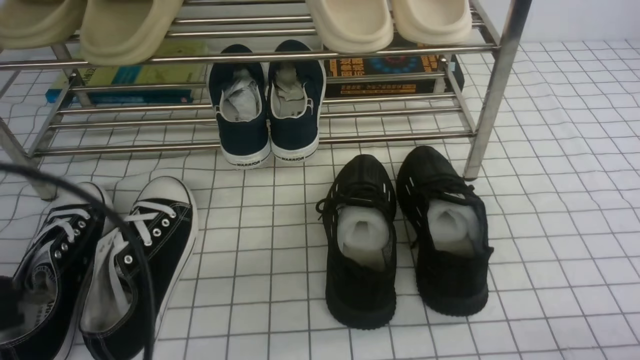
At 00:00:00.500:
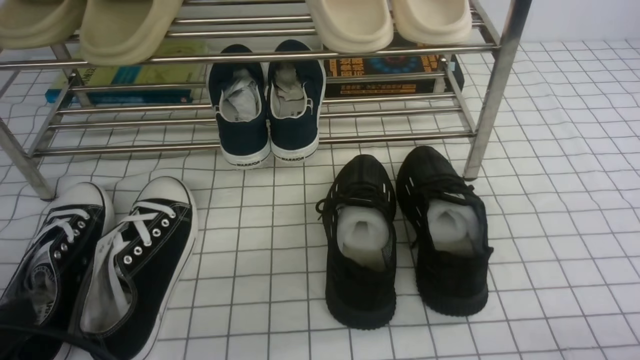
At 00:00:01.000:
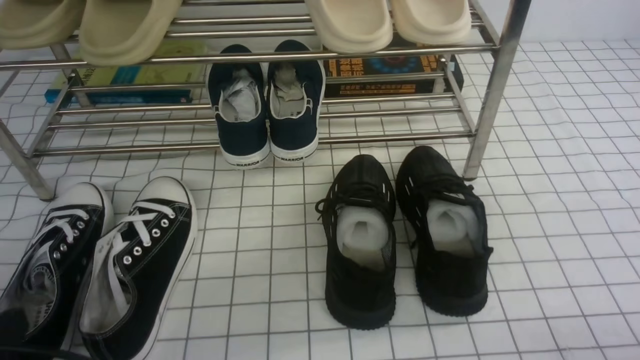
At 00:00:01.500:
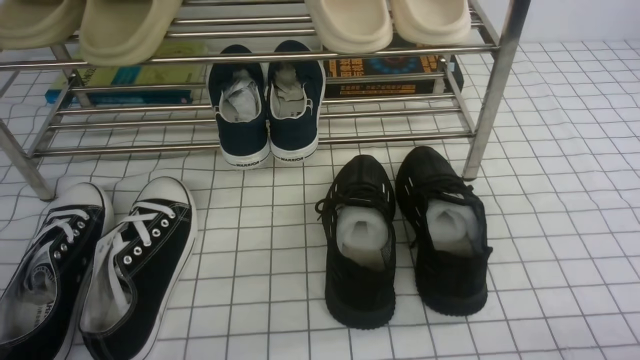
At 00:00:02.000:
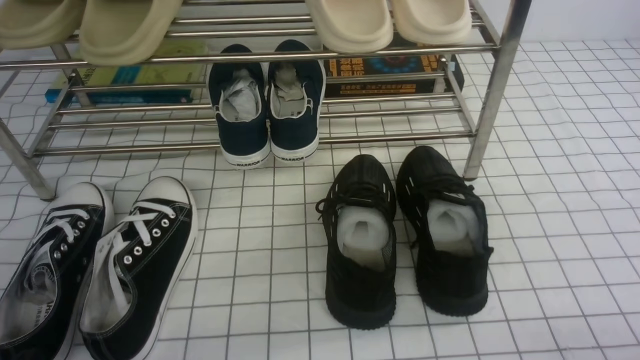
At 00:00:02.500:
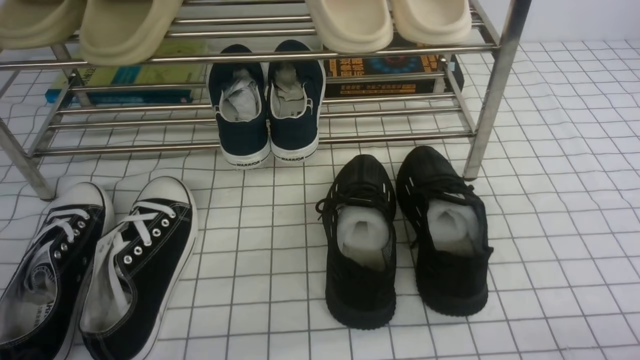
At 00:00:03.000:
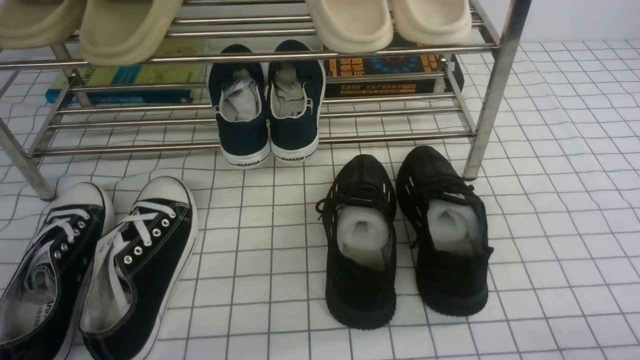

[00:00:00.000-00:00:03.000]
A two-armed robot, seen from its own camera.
00:00:00.000 to 00:00:01.500: The left gripper is displaced downward and backward by approximately 15 cm.

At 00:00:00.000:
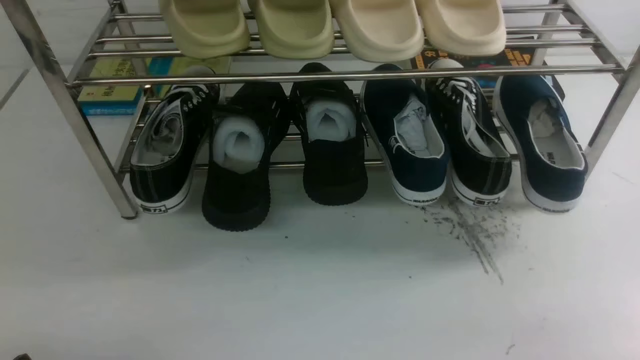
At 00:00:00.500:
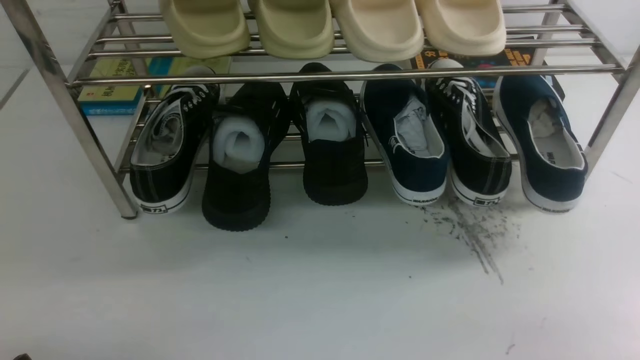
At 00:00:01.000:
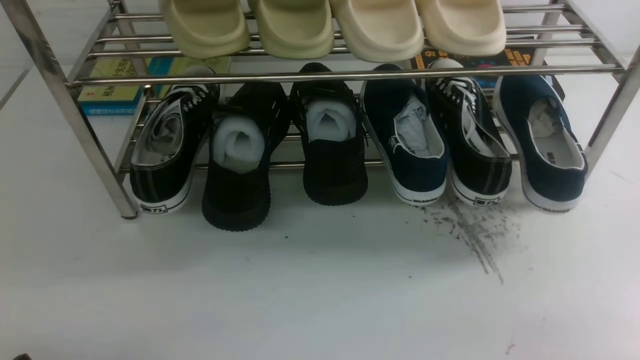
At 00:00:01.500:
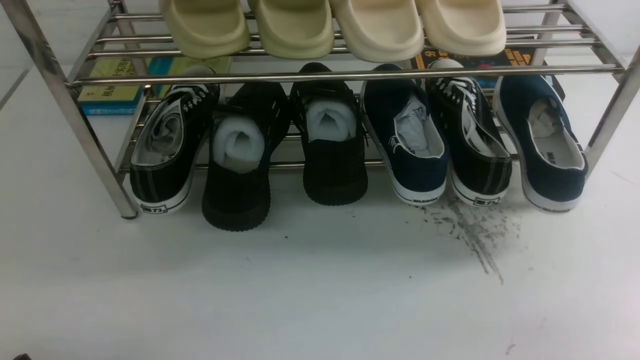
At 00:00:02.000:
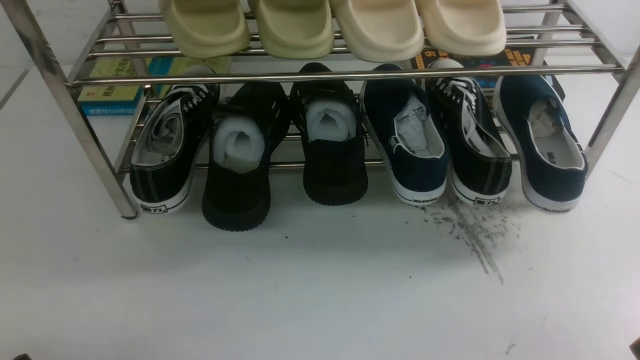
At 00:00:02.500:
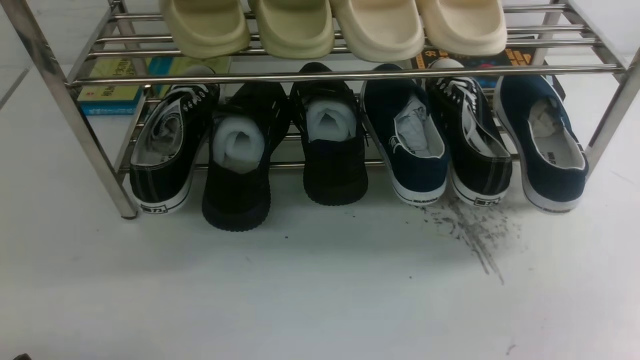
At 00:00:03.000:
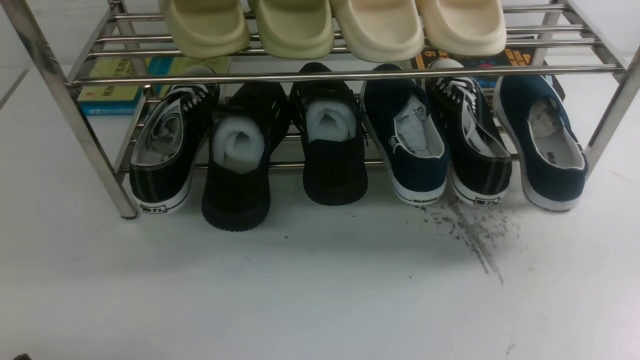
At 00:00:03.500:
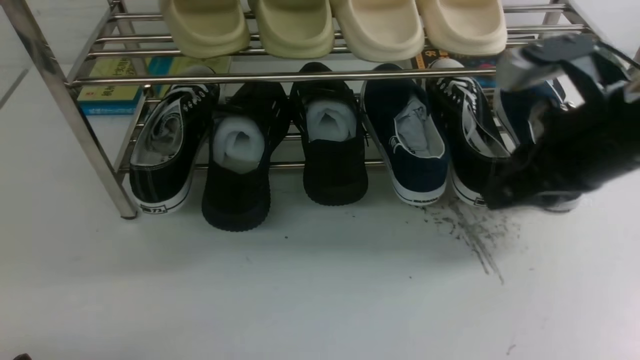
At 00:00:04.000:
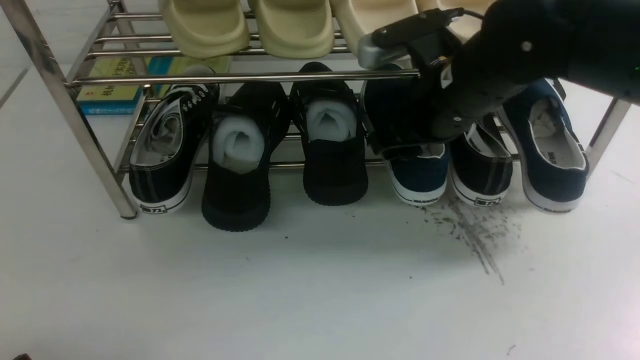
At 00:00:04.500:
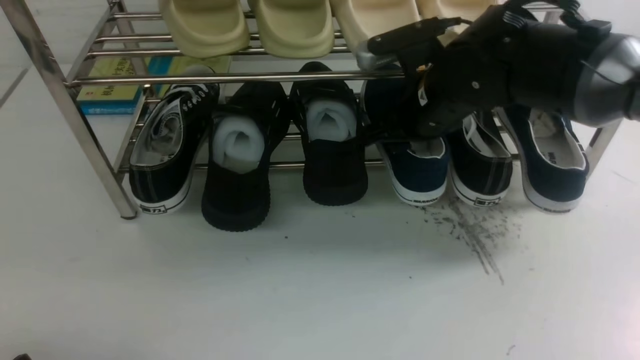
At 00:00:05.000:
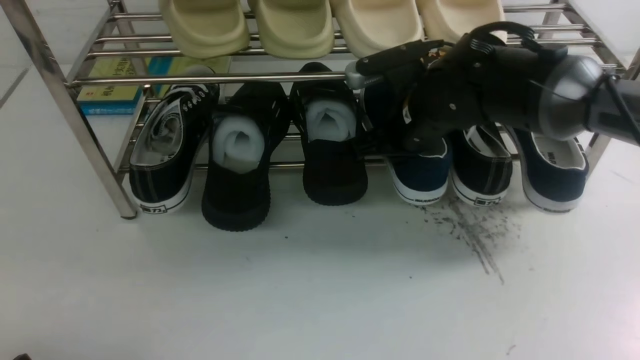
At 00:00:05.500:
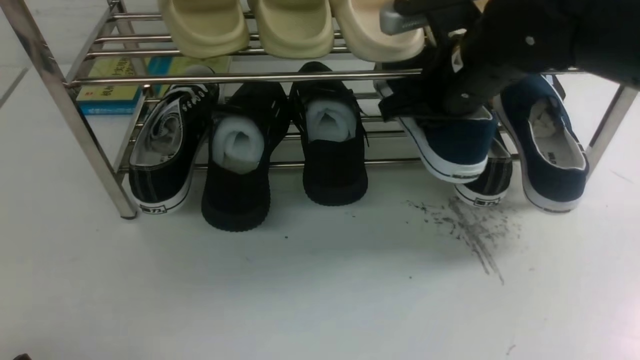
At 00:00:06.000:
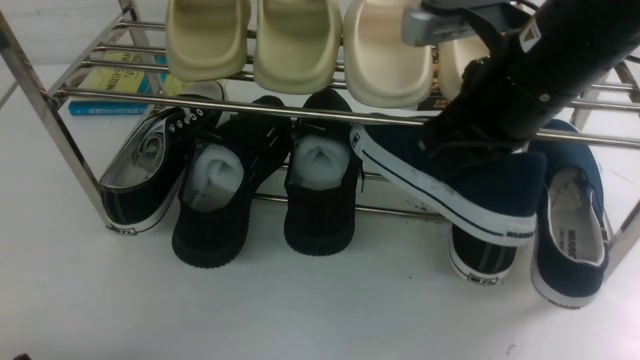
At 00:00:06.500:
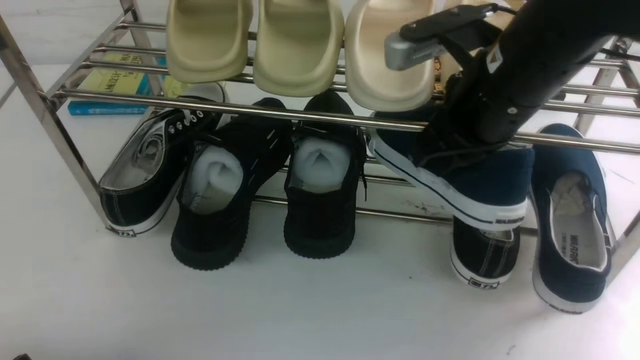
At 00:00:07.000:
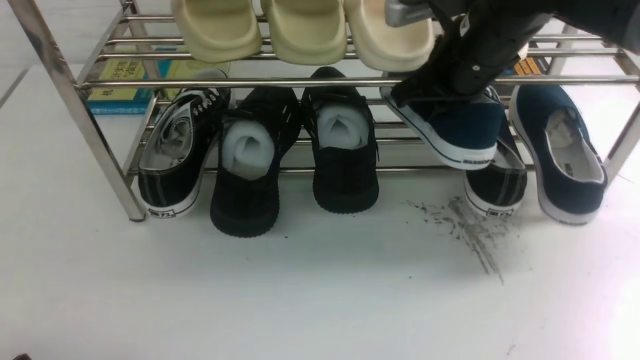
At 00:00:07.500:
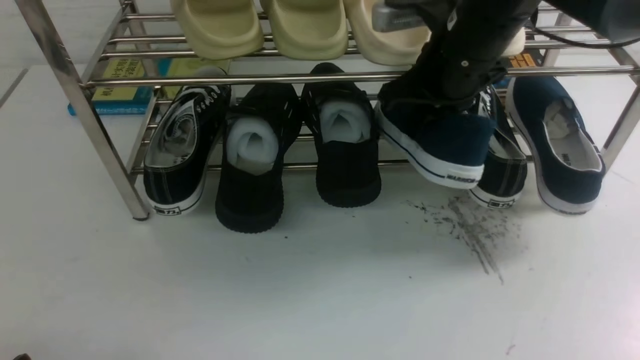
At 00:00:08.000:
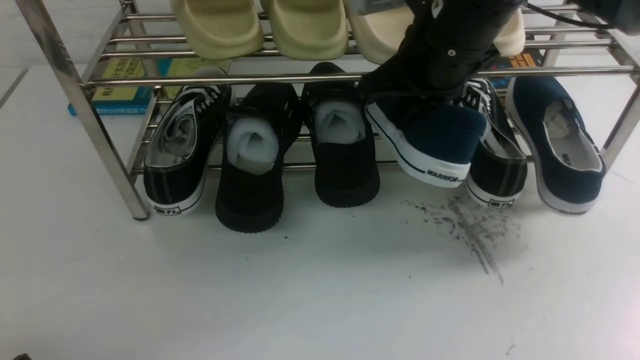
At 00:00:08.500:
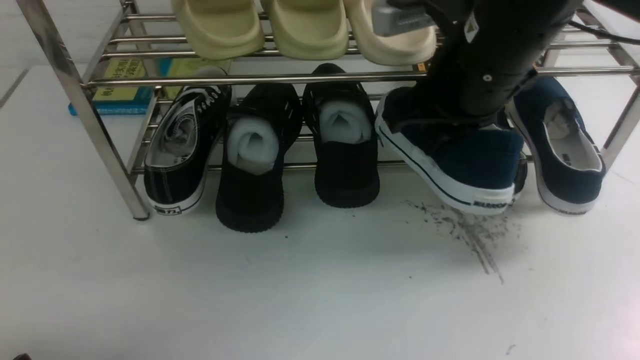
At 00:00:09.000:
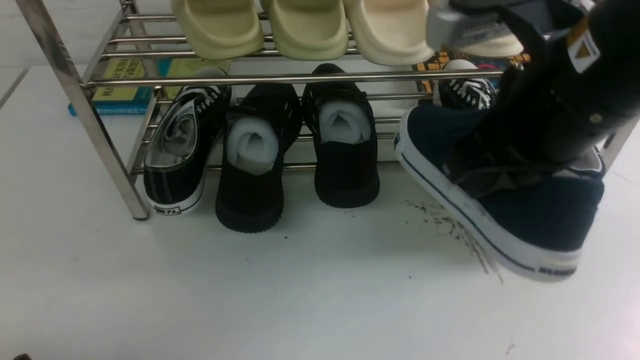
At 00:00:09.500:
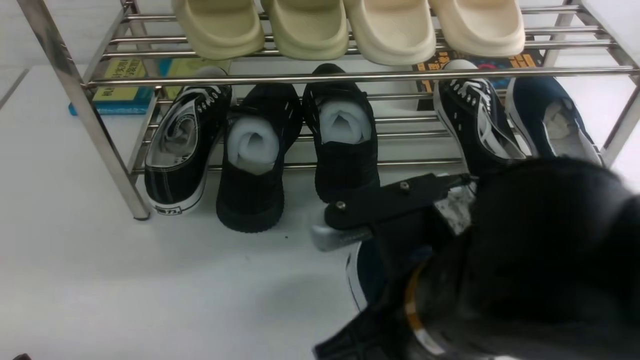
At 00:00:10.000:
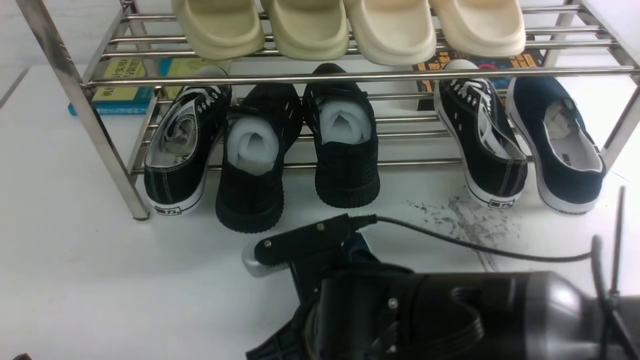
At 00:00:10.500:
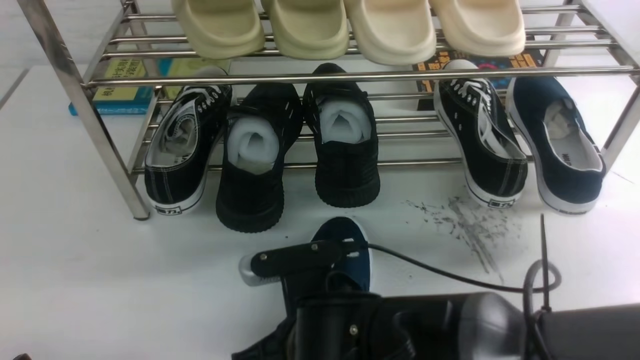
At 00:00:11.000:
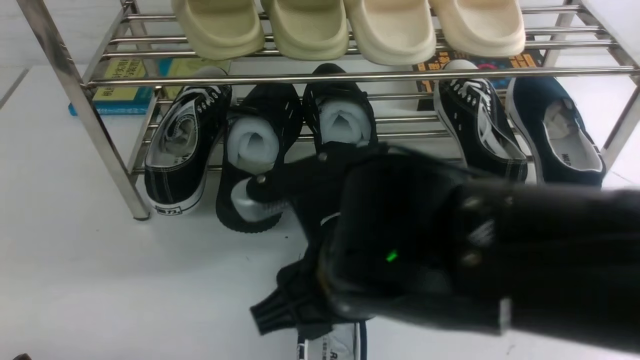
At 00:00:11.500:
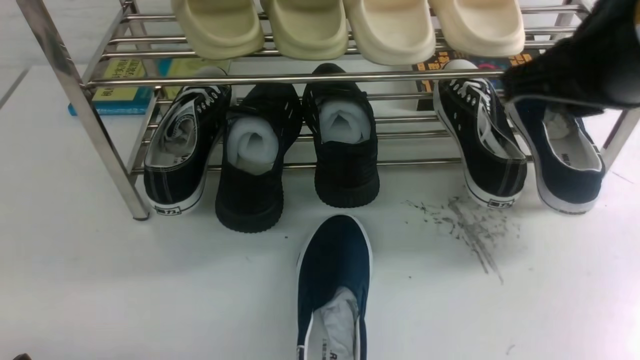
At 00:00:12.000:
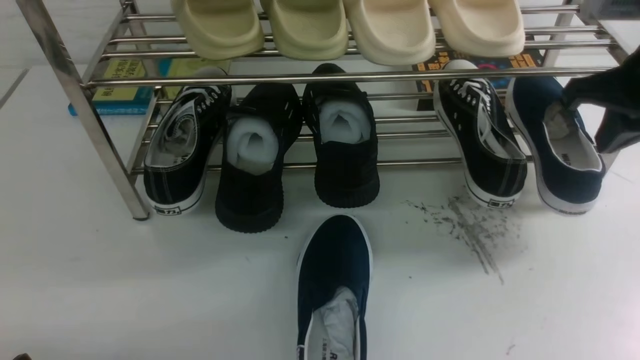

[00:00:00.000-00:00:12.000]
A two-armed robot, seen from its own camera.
Step, 00:00:00.000 to 00:00:05.000: use the right arm to clamp a shoe in the middle of the shoe rack.
Step, 00:00:05.500 to 00:00:11.000: use the right arm to take out the clamped shoe from the shoe rack and put it down.
00:00:02.000 to 00:00:04.000: The right gripper travels forward, to the left and upward by some 35 cm, and opens.
00:00:04.000 to 00:00:06.000: The right gripper heads upward and backward, covering approximately 10 cm, and closes up.
00:00:06.000 to 00:00:08.000: The right gripper travels forward by approximately 5 cm.
00:00:08.000 to 00:00:10.000: The right gripper goes some 25 cm backward, downward and to the left.
00:00:10.000 to 00:00:12.000: The right gripper goes some 35 cm to the right, forward and upward, and opens, then closes again.

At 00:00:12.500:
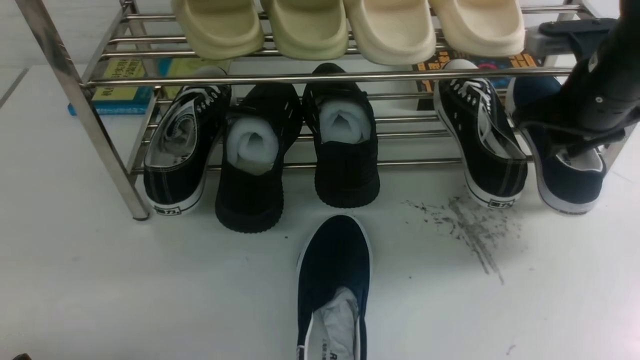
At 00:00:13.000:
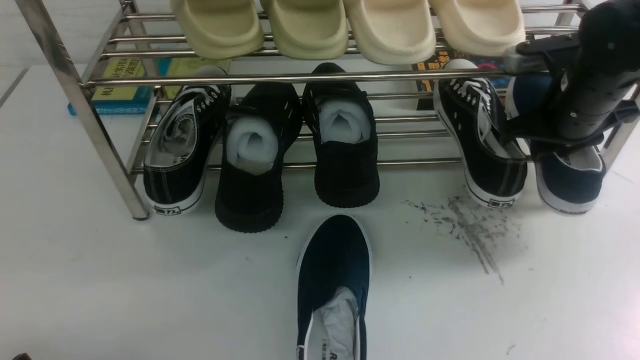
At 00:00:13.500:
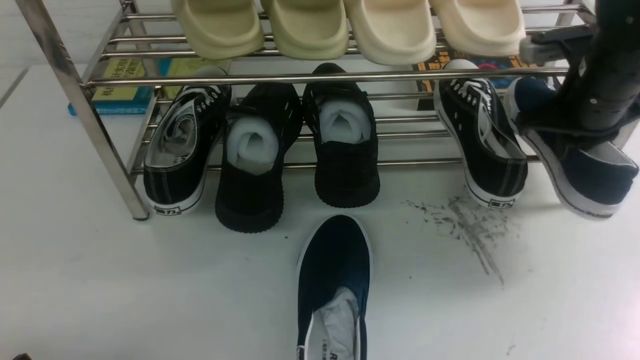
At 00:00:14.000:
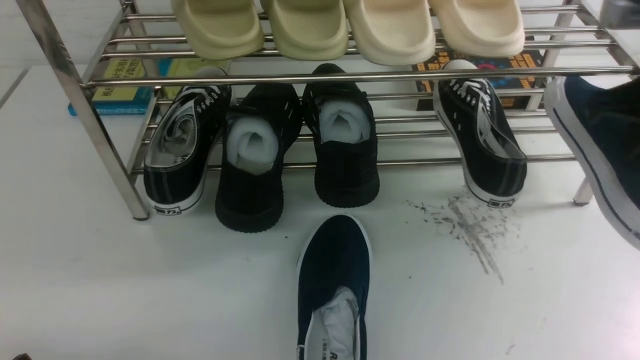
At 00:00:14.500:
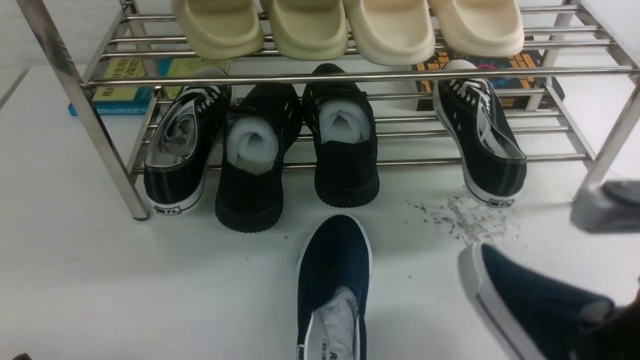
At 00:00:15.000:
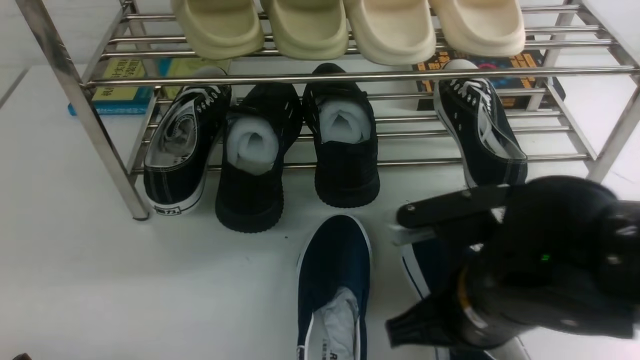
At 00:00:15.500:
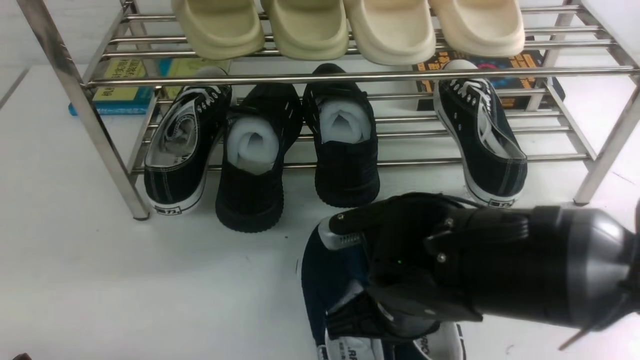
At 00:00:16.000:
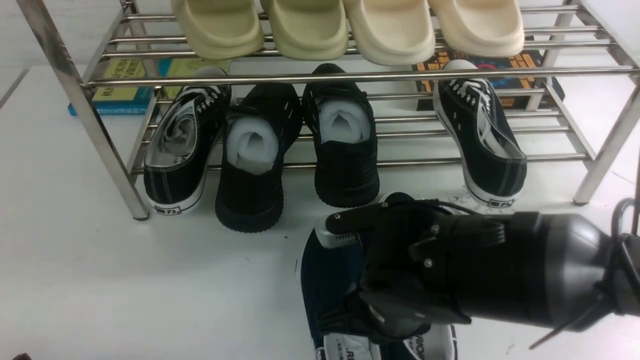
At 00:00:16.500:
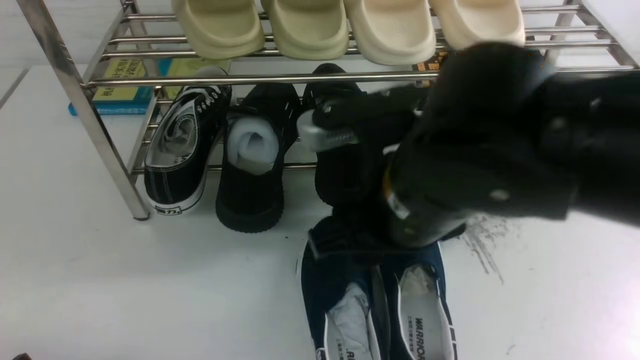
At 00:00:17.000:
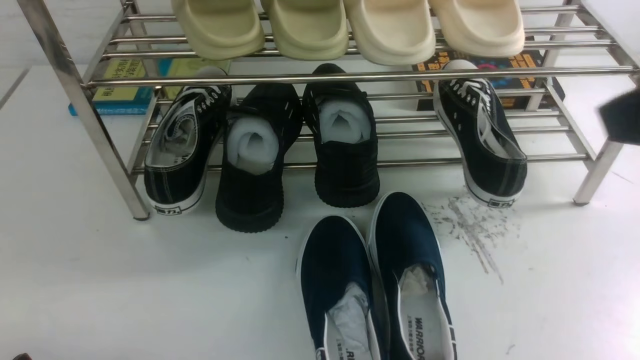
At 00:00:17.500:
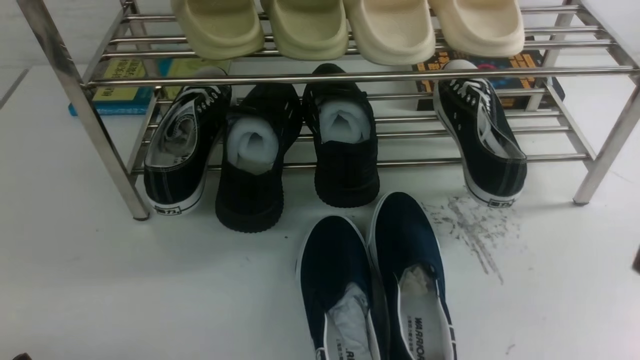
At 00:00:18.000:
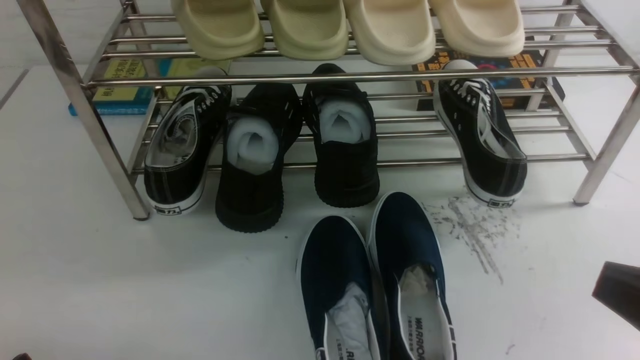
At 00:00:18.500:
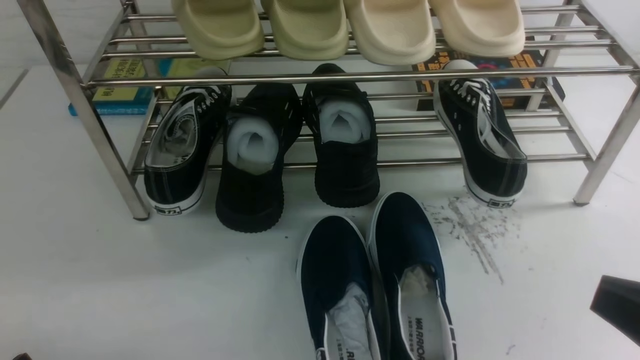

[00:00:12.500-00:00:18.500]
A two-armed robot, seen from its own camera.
Step, 00:00:14.000 to 00:00:16.500: use the right arm to take out the clamped shoe from the shoe rack and put it down.
00:00:12.500 to 00:00:14.500: The right gripper goes roughly 20 cm backward, and closes.
00:00:14.500 to 00:00:16.500: The right gripper heads to the left and forward, covering approximately 15 cm, and opens up.
00:00:16.500 to 00:00:18.500: The right gripper heads to the right and backward, covering about 25 cm, and closes its fingers.
